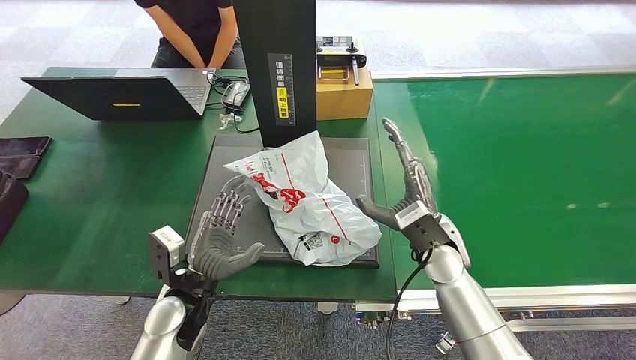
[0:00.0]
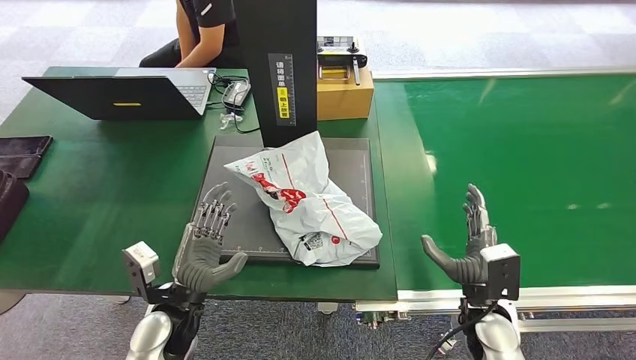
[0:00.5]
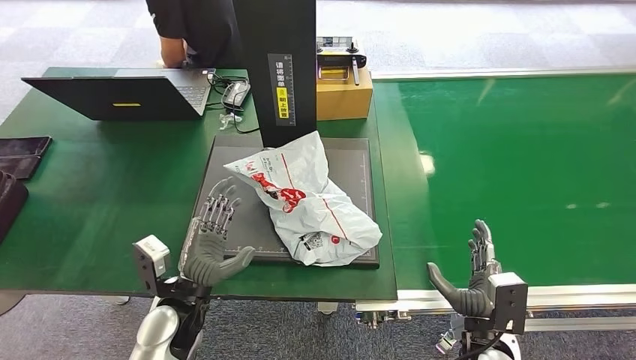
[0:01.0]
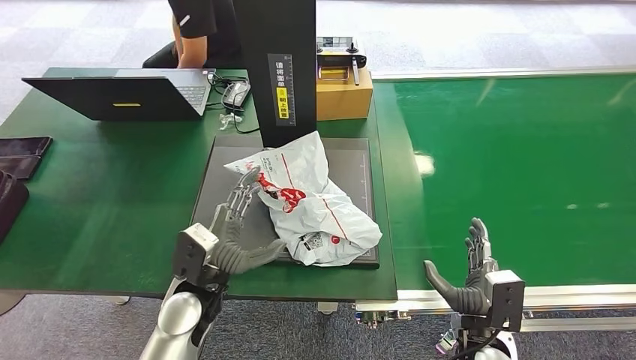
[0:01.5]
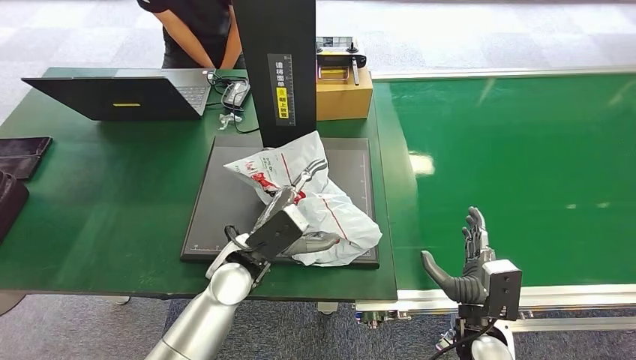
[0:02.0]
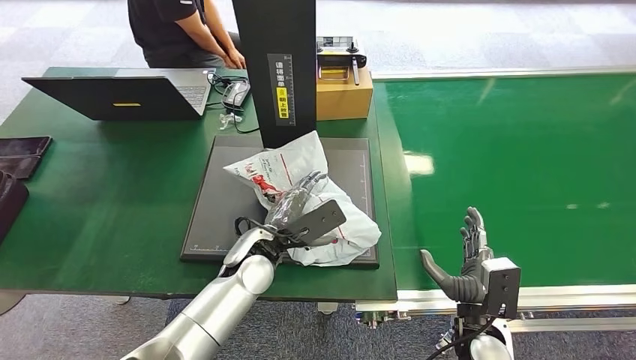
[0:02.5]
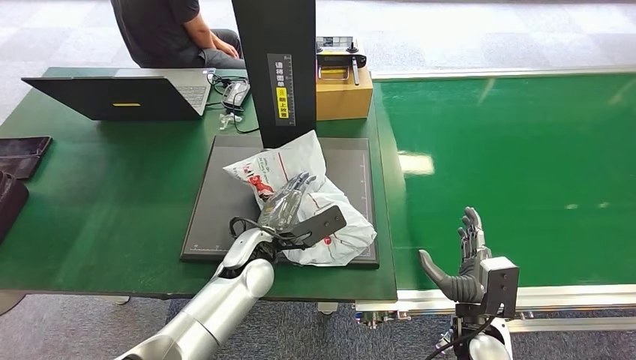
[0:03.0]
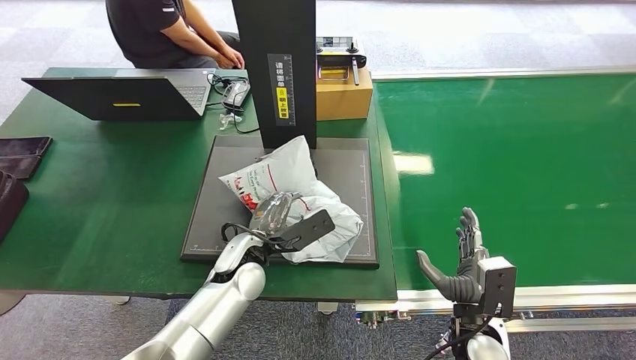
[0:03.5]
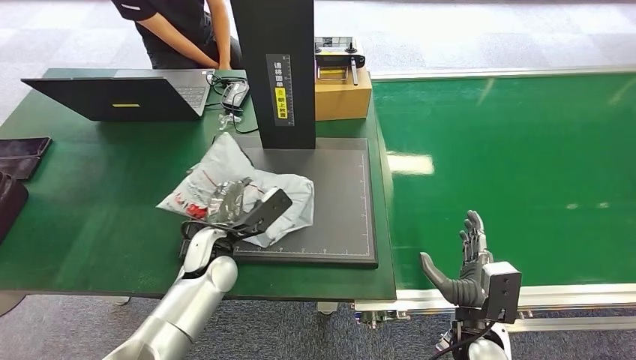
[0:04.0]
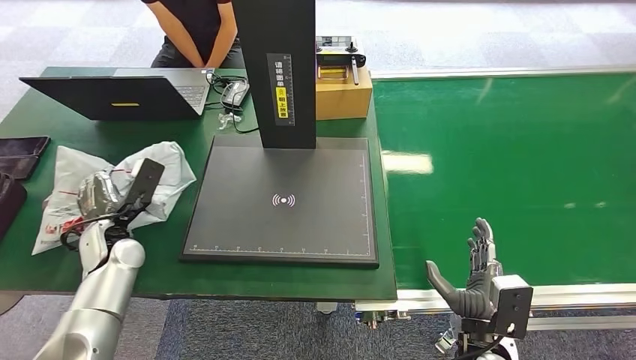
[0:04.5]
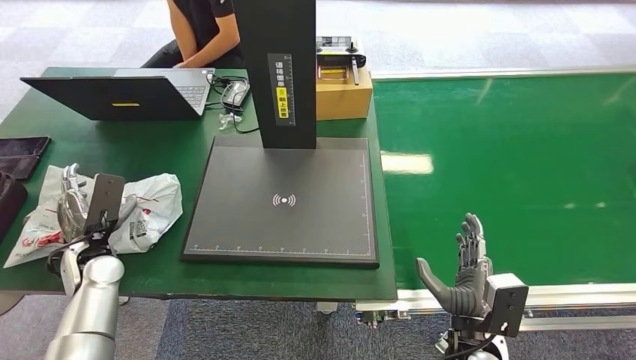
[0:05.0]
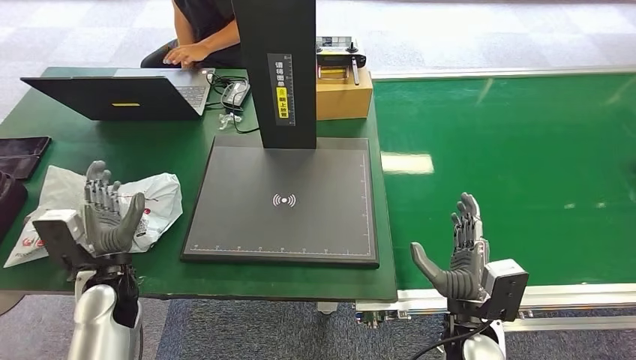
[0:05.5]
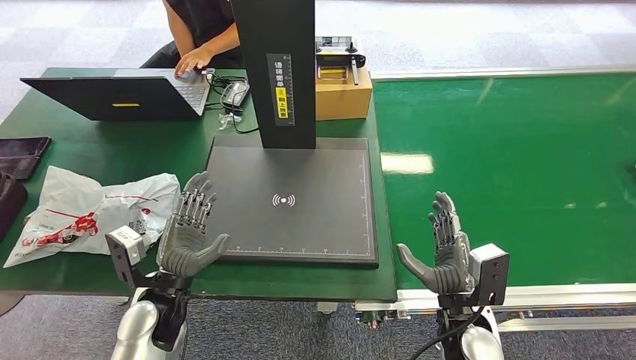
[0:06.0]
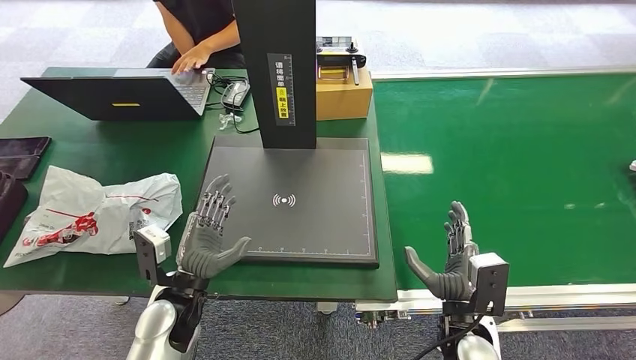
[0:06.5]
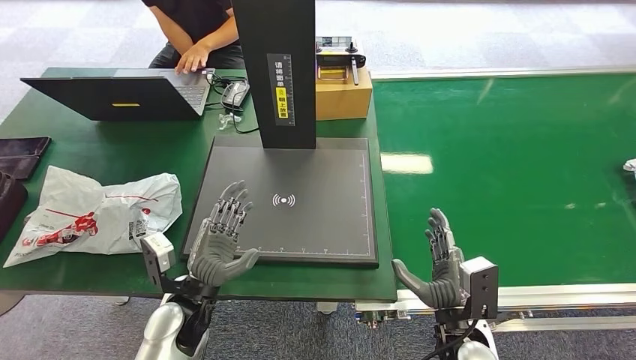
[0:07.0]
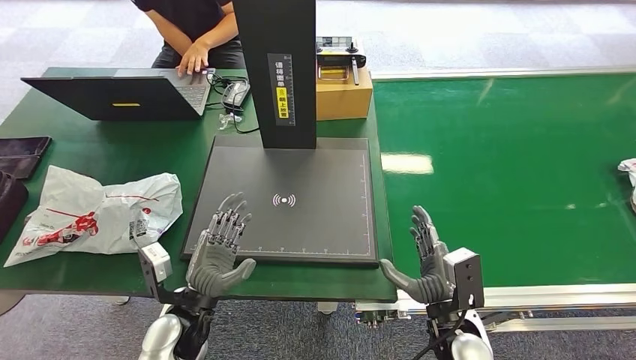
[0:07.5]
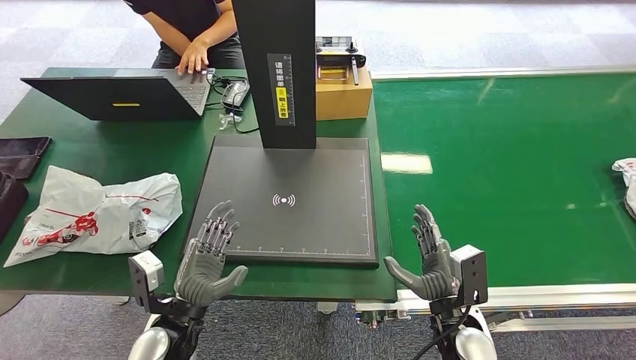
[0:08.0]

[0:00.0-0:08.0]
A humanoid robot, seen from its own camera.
Step, 0:00.0 to 0:04.0: Pick up the package from the inbound machine.
Step, 0:04.5 to 0:08.0: Place the package into the parcel locker.
0:00.0 to 0:02.0: The right hand heads backward, downward and to the right, covering about 20 cm, while the left hand goes approximately 10 cm to the right.
0:02.0 to 0:04.0: The left hand shifts some 5 cm to the left.
0:06.0 to 0:08.0: The left hand changes place by about 5 cm.
